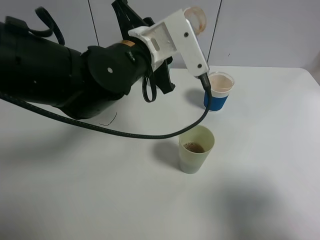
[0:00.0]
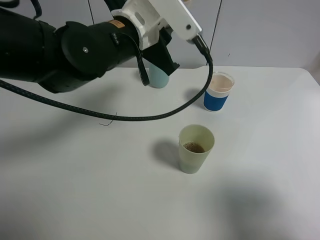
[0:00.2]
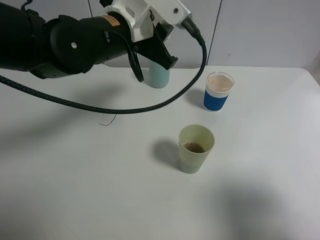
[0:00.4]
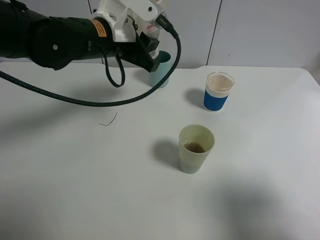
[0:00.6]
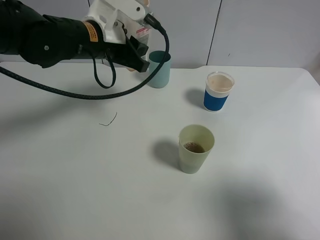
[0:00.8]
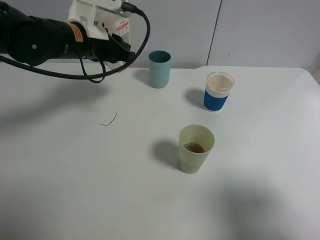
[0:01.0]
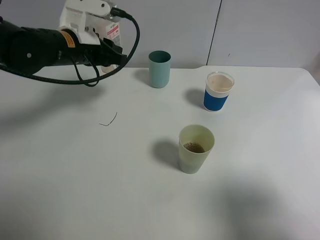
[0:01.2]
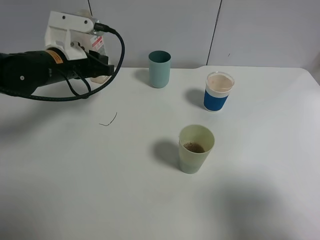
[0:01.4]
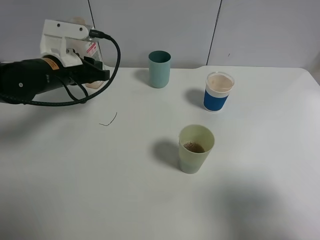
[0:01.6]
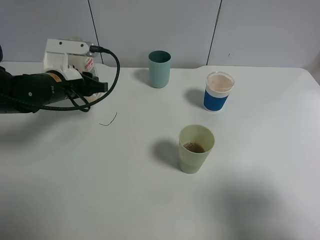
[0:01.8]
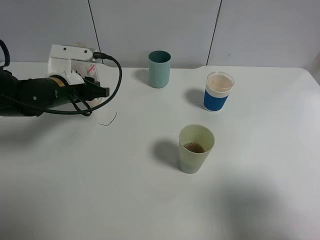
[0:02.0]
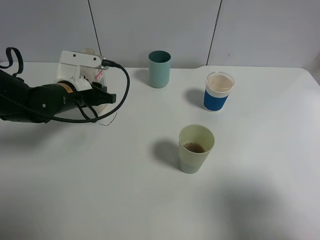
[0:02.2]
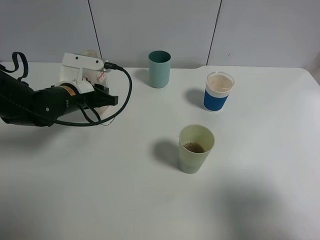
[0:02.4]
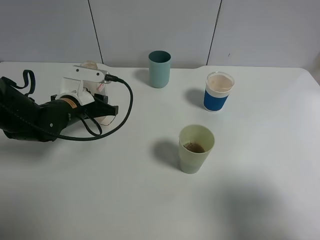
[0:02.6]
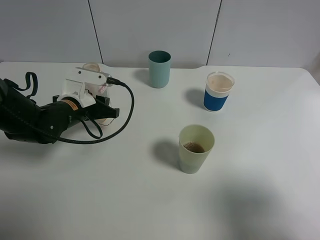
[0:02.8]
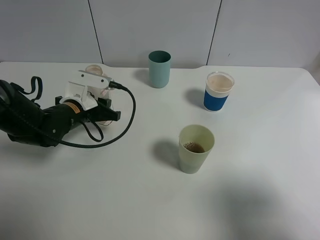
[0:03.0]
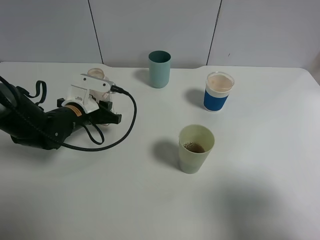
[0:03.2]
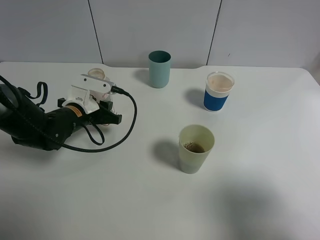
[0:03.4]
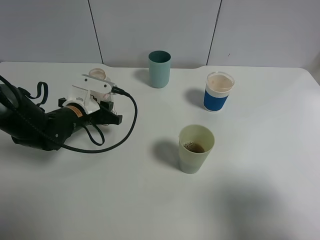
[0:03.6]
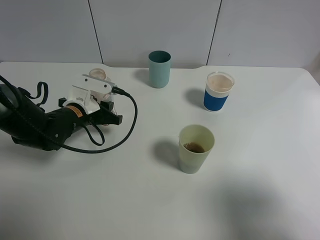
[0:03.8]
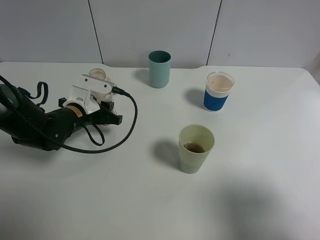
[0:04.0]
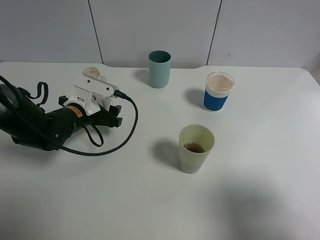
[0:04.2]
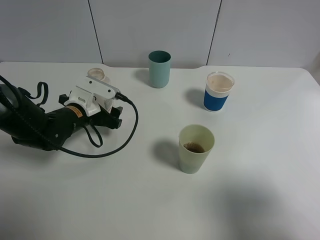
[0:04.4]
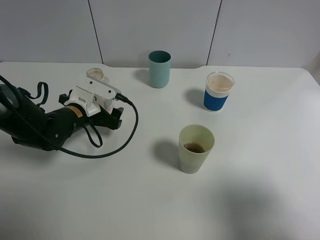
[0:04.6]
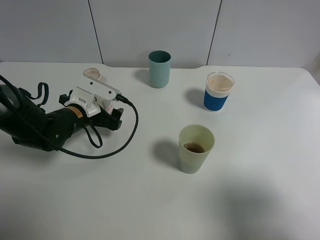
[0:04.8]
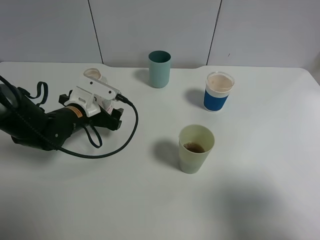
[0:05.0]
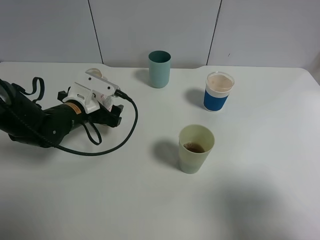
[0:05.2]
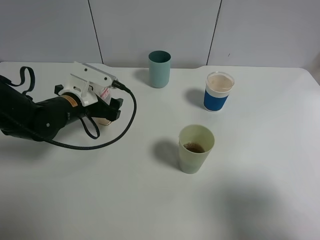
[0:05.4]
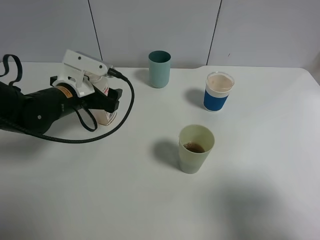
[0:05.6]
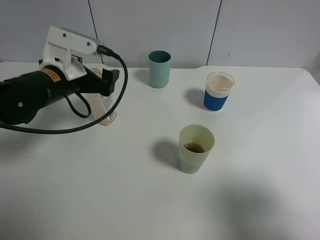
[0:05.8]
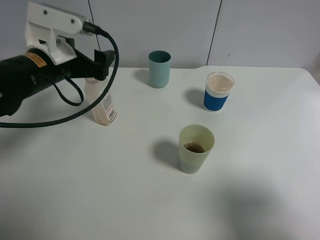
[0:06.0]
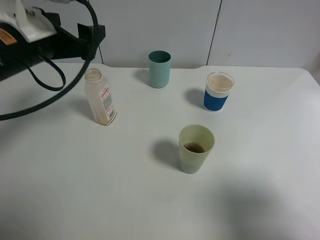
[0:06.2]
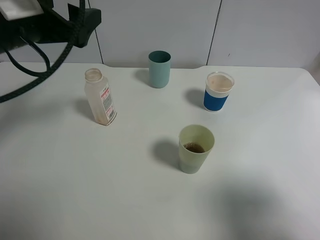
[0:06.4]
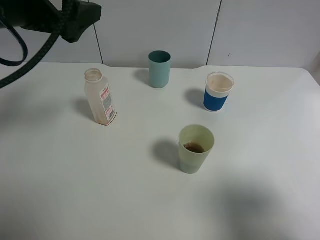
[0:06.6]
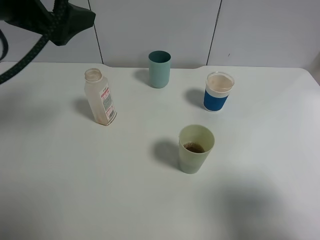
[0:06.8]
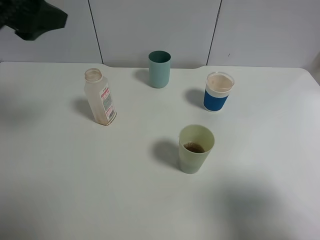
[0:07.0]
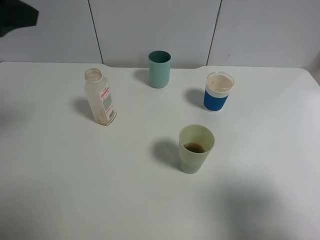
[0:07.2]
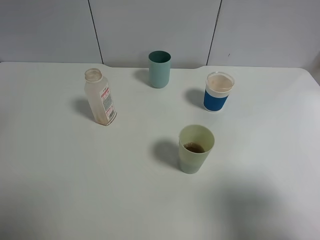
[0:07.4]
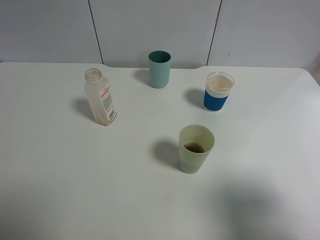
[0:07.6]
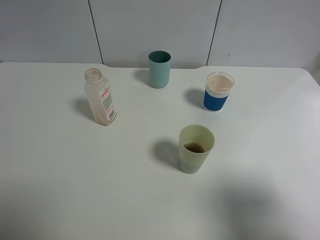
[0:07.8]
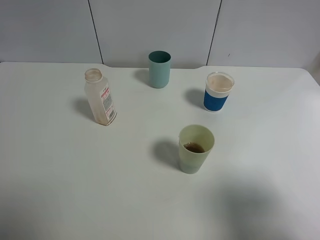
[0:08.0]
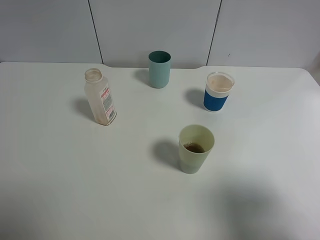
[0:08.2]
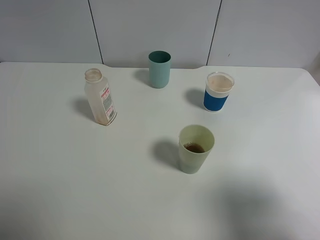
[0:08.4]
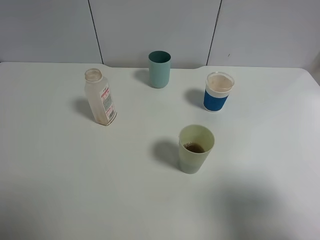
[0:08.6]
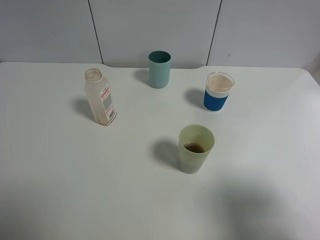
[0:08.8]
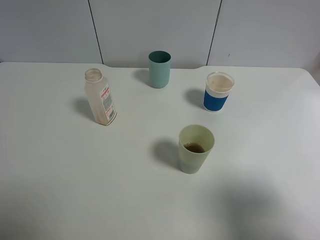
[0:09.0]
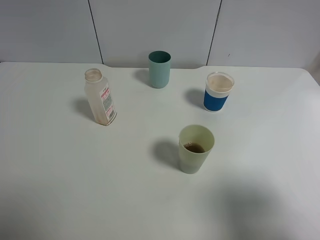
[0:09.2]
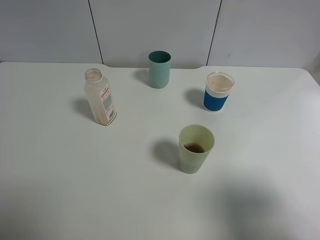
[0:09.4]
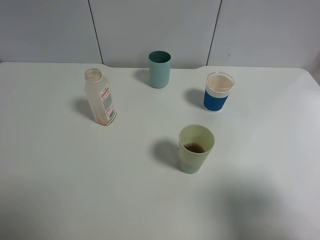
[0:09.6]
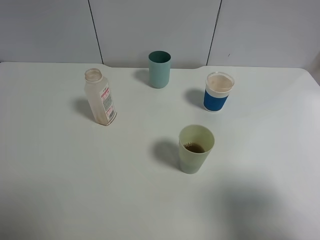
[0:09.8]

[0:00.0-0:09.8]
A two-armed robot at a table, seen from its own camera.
Task of the whole recording: use a gripper to hold the bottle of the drink and pour it into a random cup.
Step, 0:00.0 to 0:05.2: Place the cranberry juice bottle on the table with the left gripper.
0:00.0 to 0:01.4: The left gripper shifts some 15 cm to the left.
0:01.4 to 0:02.8: The left gripper moves downward, roughly 10 cm.
0:02.8 to 0:04.2: The left gripper opens up.
0:04.2 to 0:05.6: The left gripper shifts some 5 cm upward.
0:05.6 to 0:07.0: The left gripper moves upward, roughly 20 cm.
0:07.0 to 0:08.4: The left gripper travels backward and to the left by roughly 20 cm.

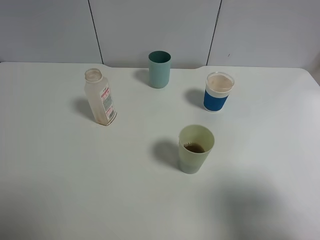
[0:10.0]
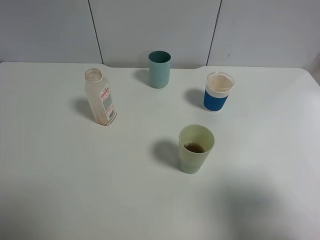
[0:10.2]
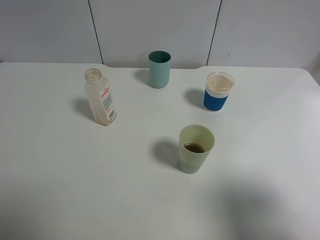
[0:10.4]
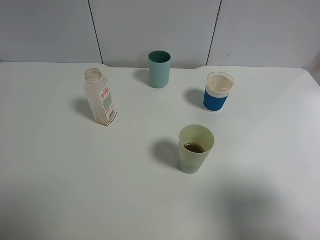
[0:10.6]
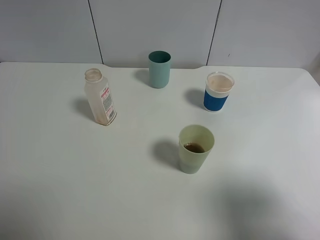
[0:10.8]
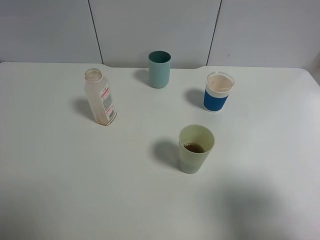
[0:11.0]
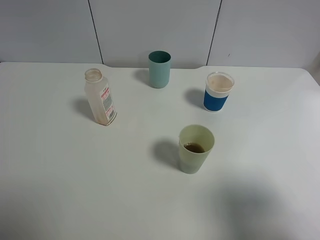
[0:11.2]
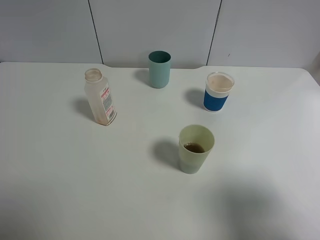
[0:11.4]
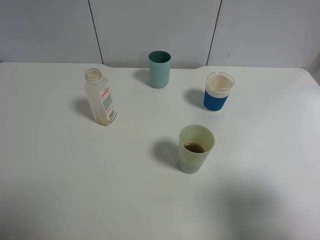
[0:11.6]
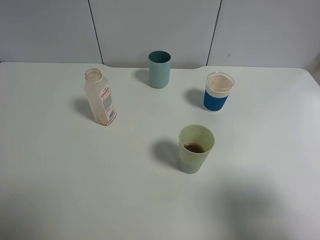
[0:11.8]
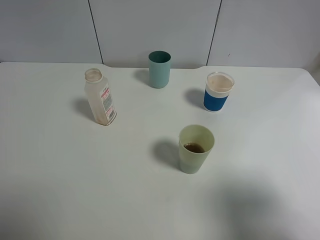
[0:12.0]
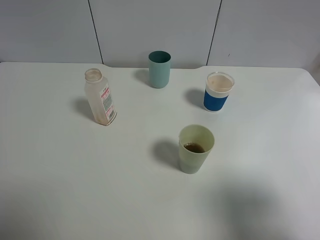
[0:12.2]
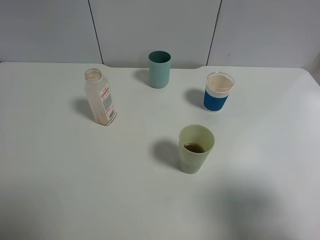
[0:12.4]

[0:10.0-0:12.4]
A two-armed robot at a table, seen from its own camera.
Task of the whole recording: use a gripper to hold the bottle of the drink and pour it into a random cup.
0:11.2 to 0:12.4: The two grippers keep their place.

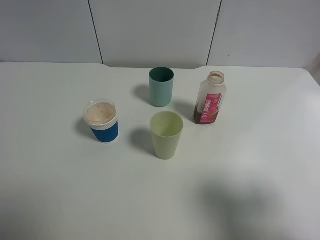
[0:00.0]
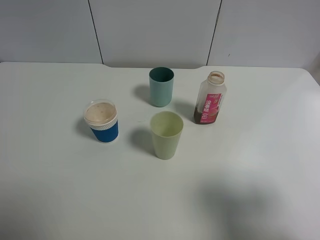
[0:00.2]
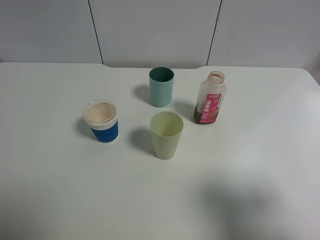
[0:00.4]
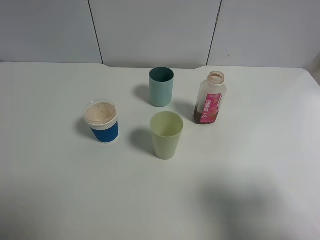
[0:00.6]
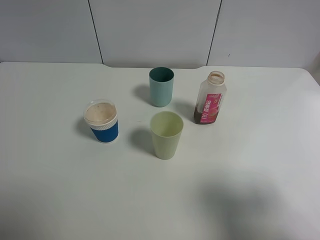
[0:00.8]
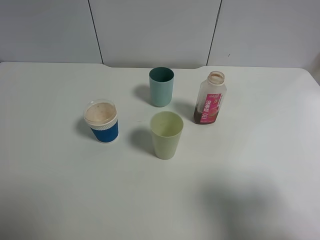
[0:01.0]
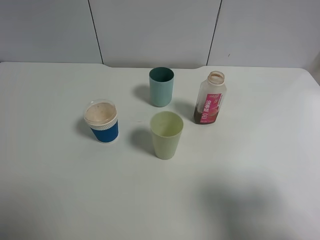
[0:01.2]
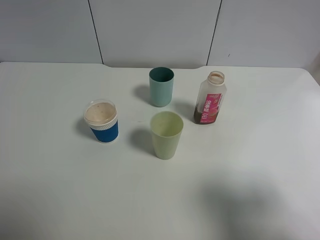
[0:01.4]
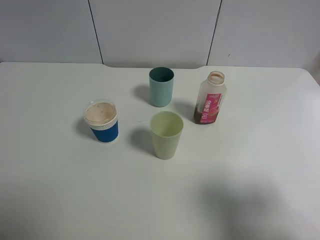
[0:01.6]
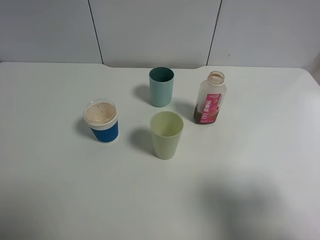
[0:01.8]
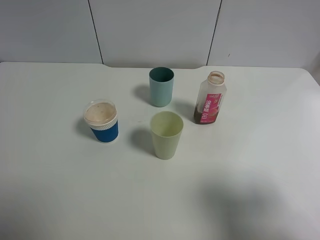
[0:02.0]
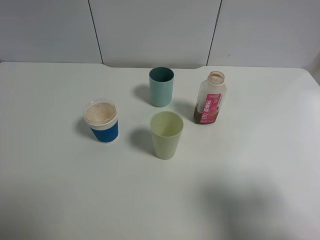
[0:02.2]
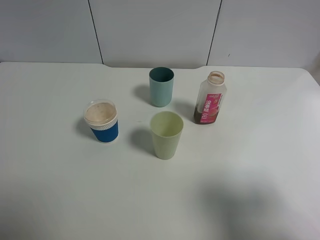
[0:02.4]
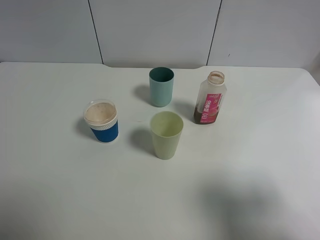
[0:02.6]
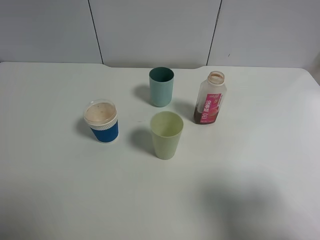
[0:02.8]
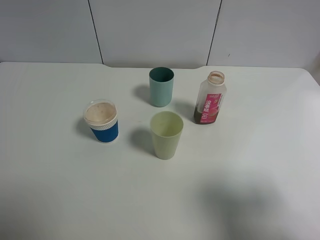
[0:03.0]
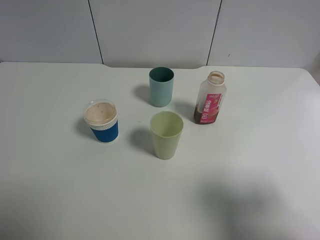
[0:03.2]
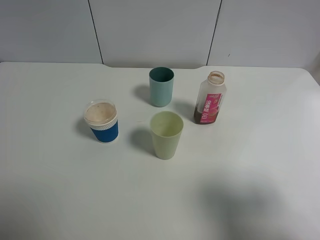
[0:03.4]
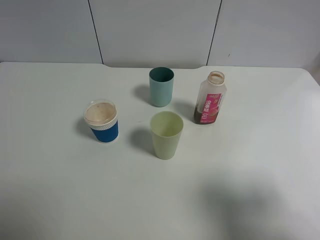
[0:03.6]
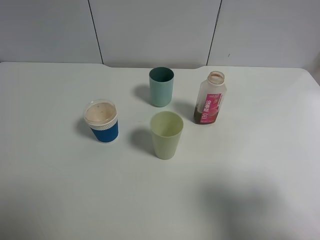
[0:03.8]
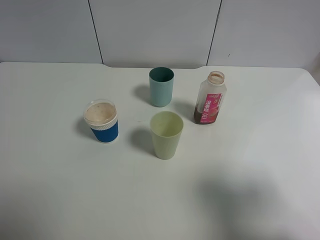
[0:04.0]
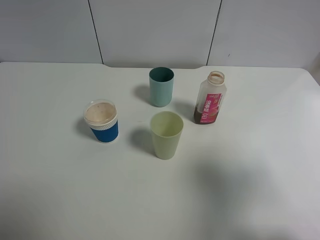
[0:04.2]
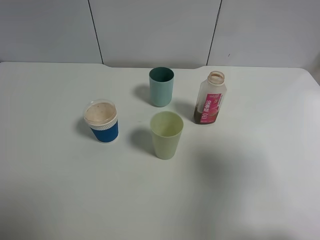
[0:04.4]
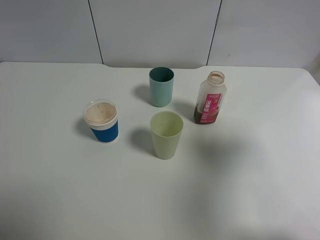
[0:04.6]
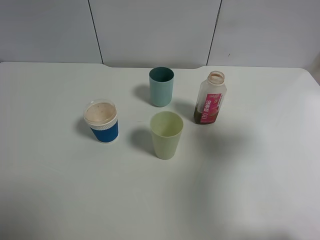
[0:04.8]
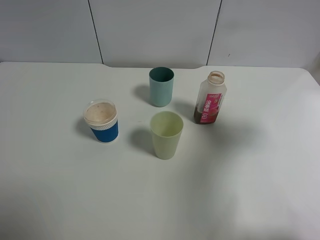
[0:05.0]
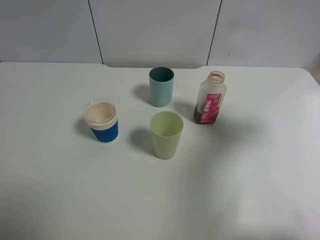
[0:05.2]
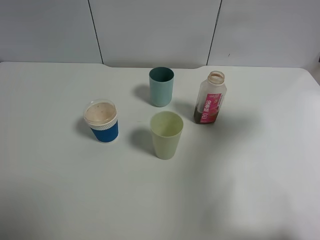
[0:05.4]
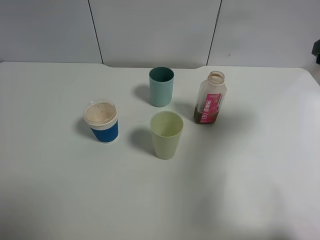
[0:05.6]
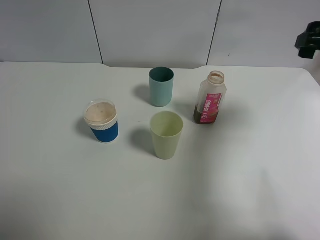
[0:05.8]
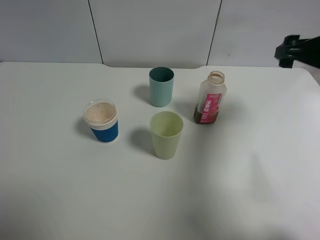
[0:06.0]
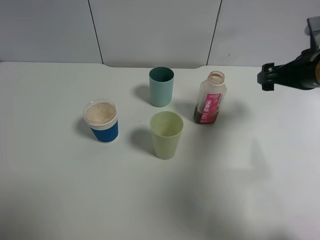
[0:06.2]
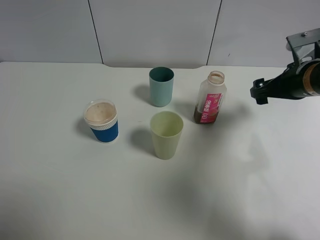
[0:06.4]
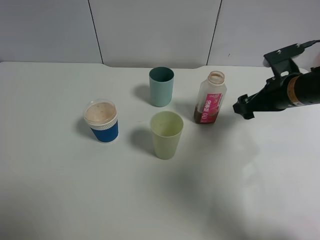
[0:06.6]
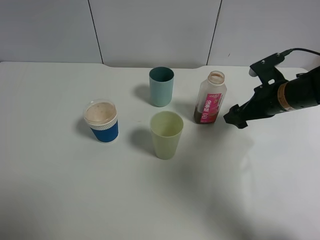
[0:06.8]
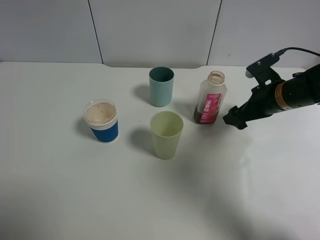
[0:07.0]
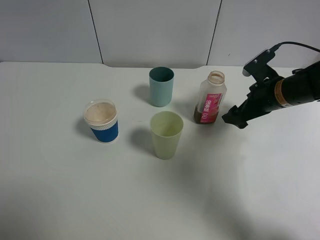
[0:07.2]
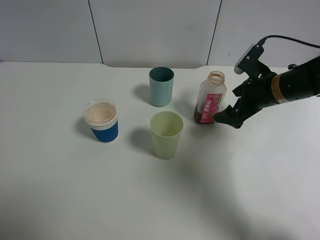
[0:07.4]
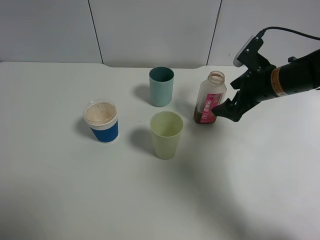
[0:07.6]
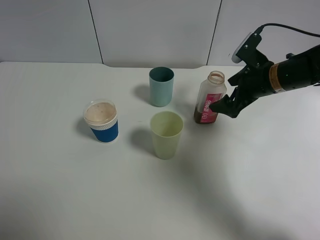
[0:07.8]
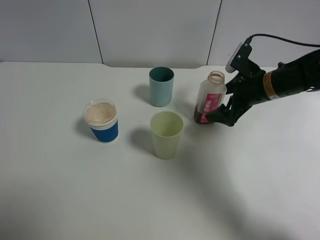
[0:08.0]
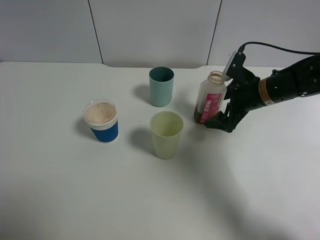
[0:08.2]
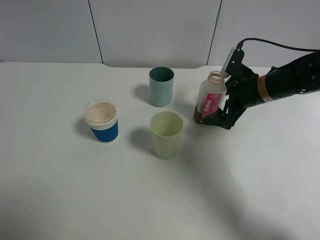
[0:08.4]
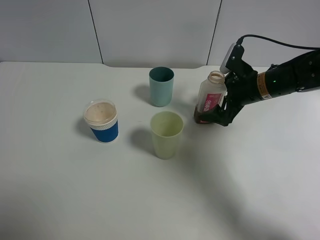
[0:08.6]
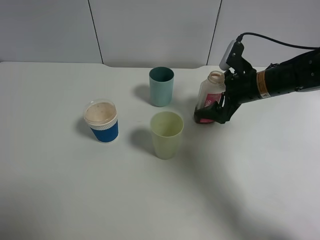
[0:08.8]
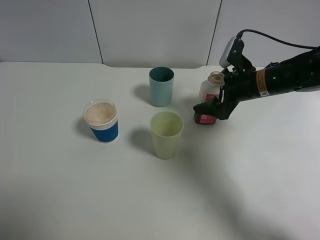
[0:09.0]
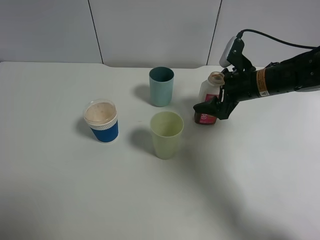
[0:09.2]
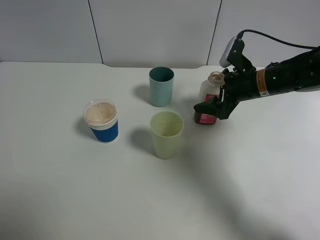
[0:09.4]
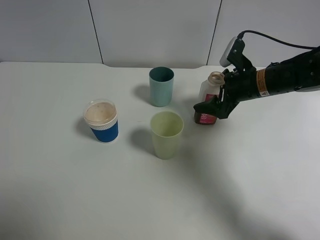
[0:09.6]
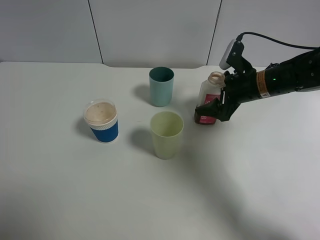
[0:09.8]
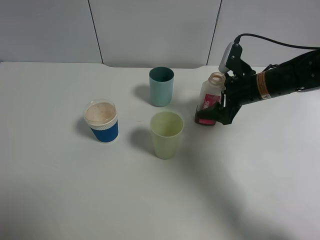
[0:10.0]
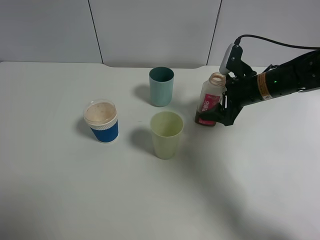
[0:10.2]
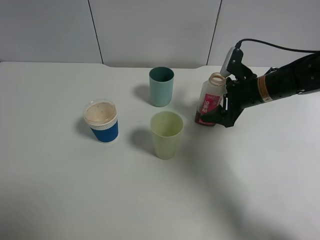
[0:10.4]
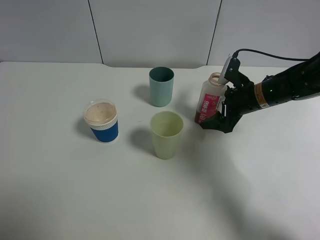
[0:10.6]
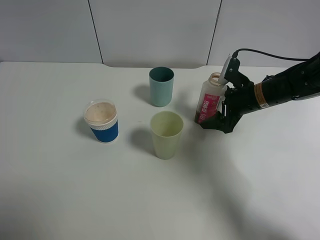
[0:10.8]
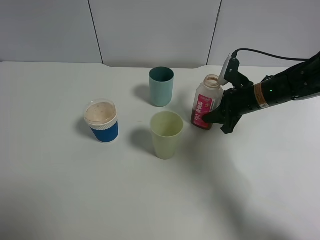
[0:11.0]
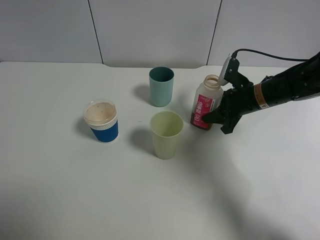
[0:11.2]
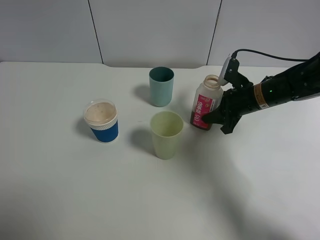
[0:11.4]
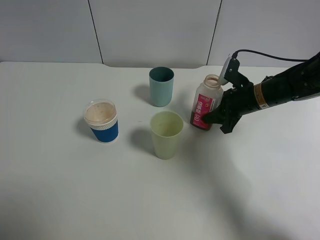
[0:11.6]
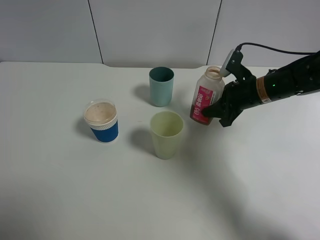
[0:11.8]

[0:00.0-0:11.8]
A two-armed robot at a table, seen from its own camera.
Task of the whole recording: use a gripper to hold the bottle of the drink and pour it into a random cup.
Step, 0:00.0 to 0:11.2: Grasp the cranberry juice bottle with the right gripper.
0:00.0 to 0:03.0: Neither gripper changes place.
0:03.0 to 0:04.4: The right gripper shifts about 10 cm forward and upward.
0:04.4 to 0:06.0: The right gripper heads forward, covering about 20 cm.
0:06.0 to 0:07.4: The right gripper travels downward, to the left and forward by roughly 15 cm.
0:07.4 to 0:10.4: The grippers move only a little.
0:10.4 to 0:11.8: The right gripper closes its fingers.
